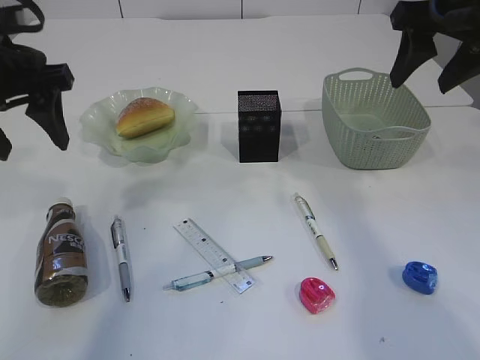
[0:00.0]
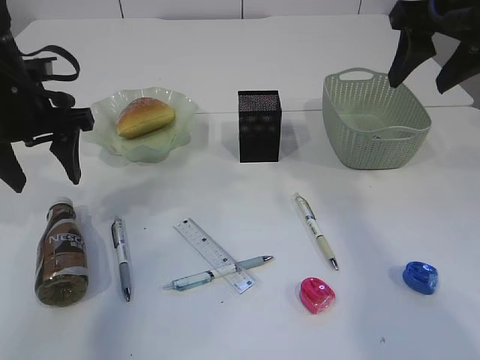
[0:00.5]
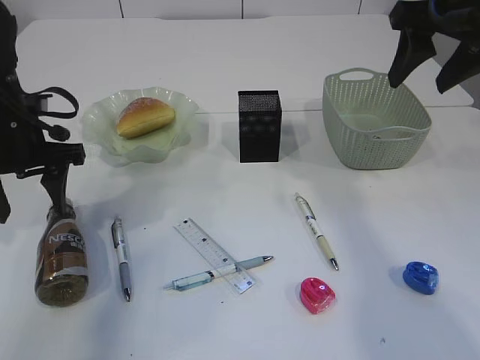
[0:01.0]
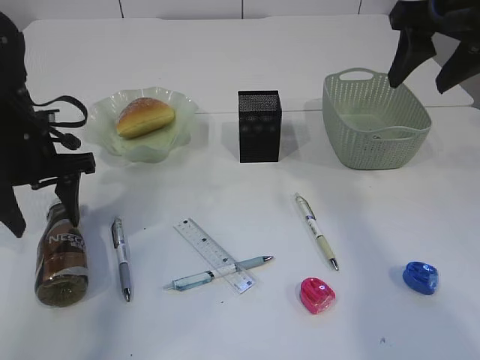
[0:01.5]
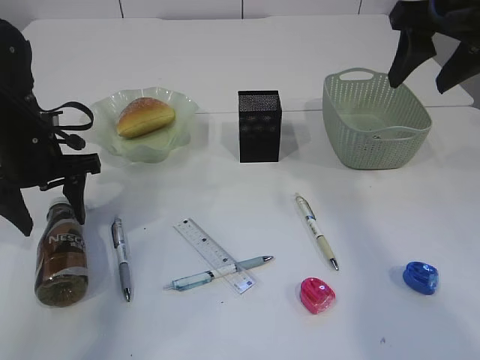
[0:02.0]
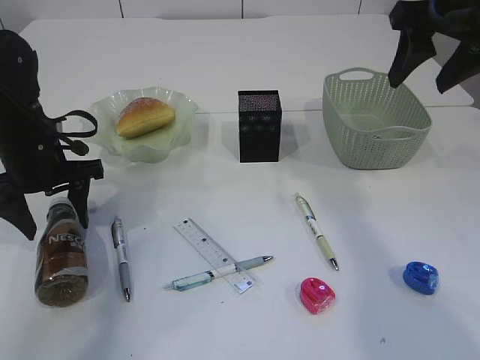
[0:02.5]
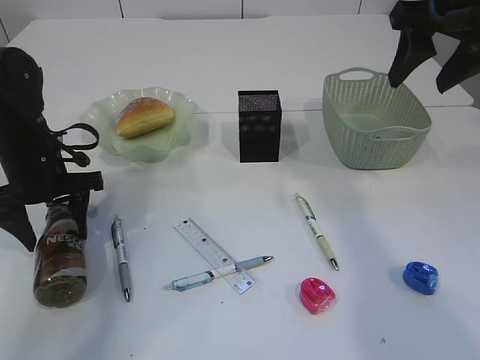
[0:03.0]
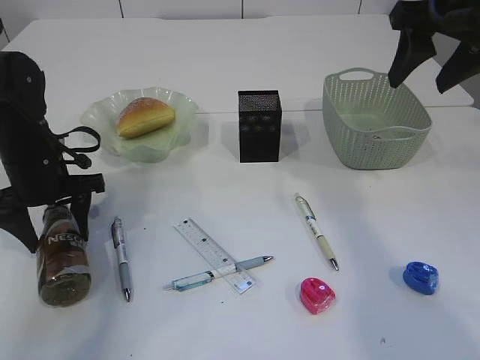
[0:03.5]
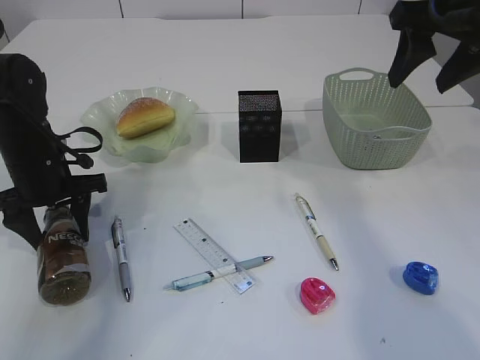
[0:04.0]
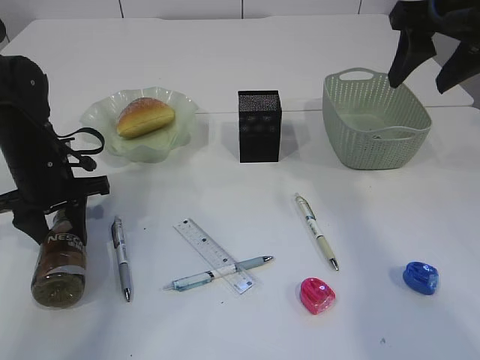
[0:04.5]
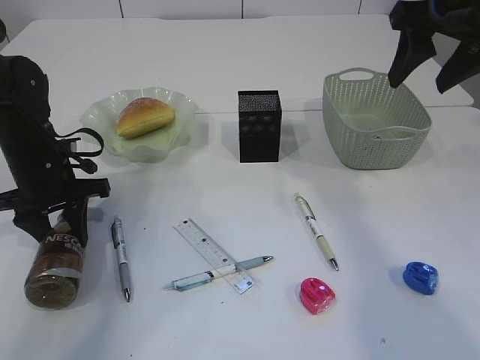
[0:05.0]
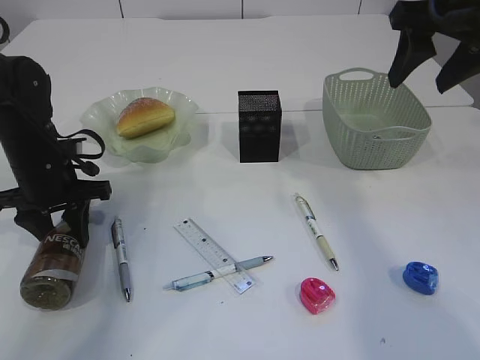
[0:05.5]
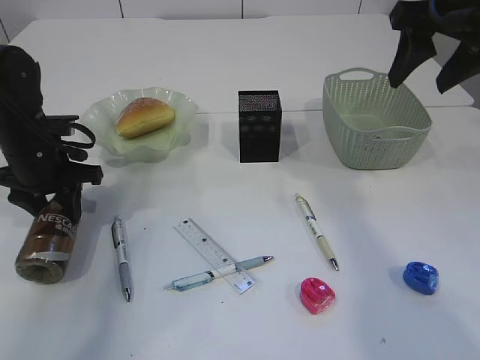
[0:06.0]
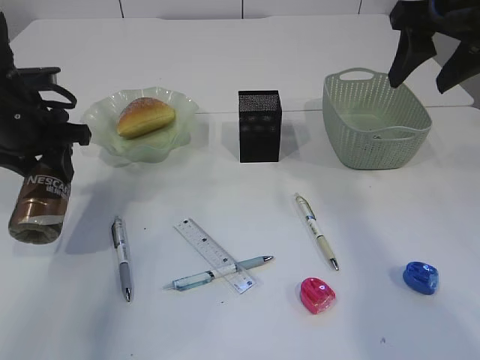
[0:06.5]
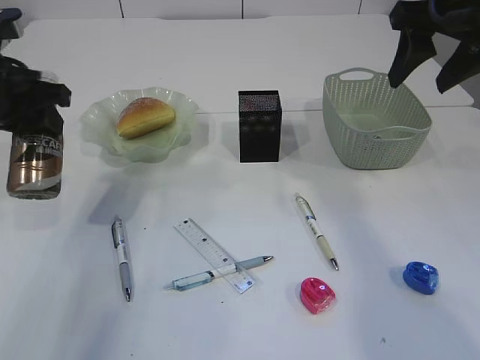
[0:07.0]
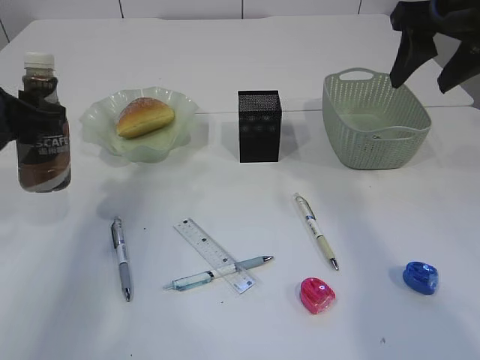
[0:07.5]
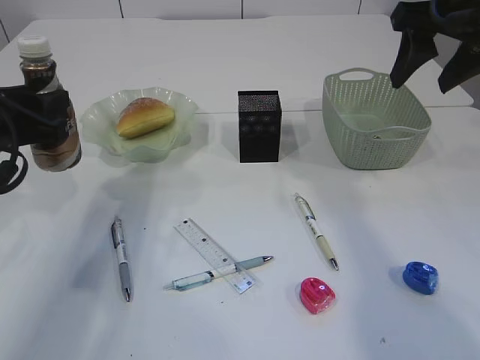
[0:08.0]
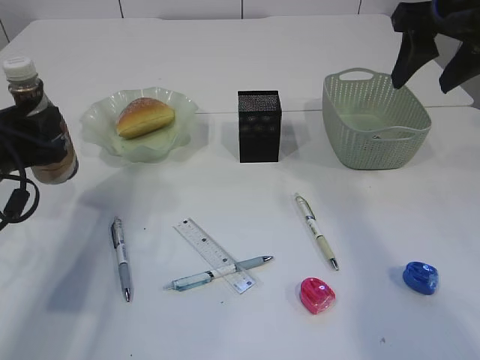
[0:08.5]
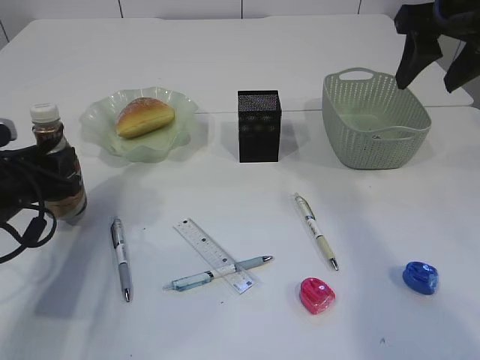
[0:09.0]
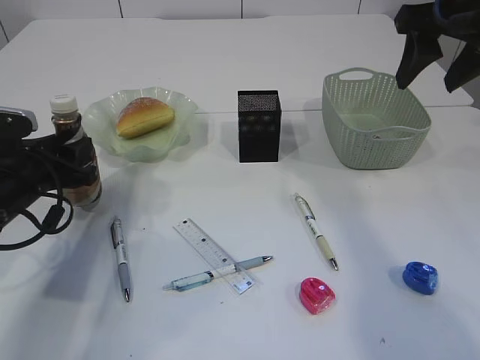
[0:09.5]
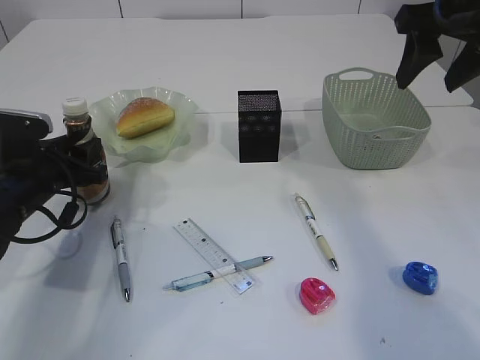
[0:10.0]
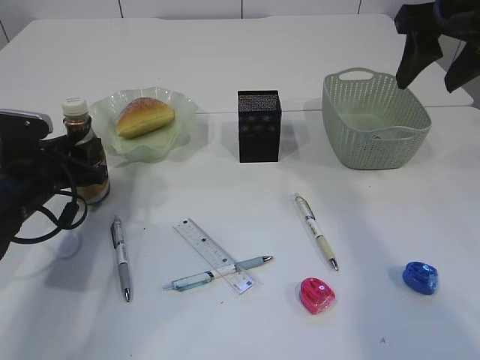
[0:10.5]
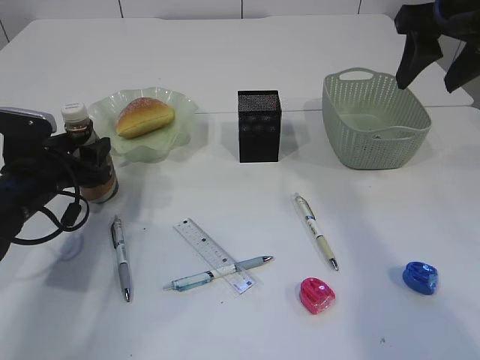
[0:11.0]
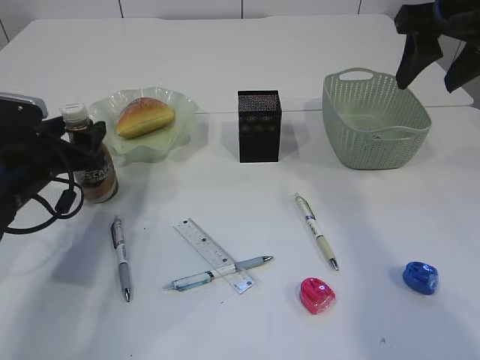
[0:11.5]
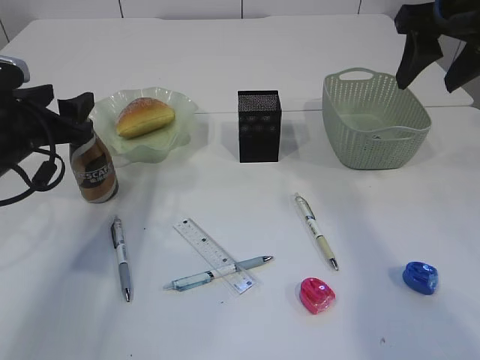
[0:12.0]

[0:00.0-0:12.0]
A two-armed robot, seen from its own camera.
Step, 0.0 to 6.5 s: Pick up the bottle with the left arm.
0.0 to 2.0 s: The left gripper shifts about 10 cm downward.
2.0 to 6.0 s: There are only small adjustments of the grippers.
6.0 to 8.0 s: The left gripper moves backward and upward, some 10 cm.
8.0 to 10.0 s: The left gripper heads downward, covering some 10 cm.
10.0 to 12.0 s: The left gripper travels upward by roughly 5 cm.

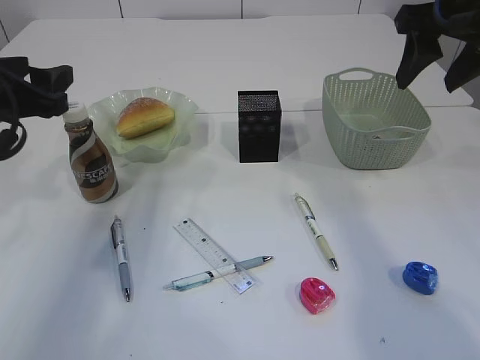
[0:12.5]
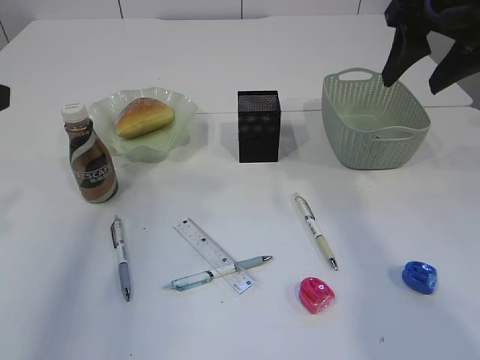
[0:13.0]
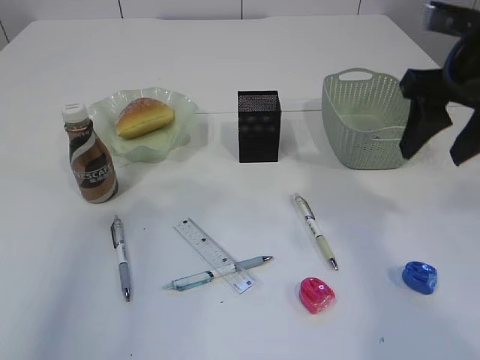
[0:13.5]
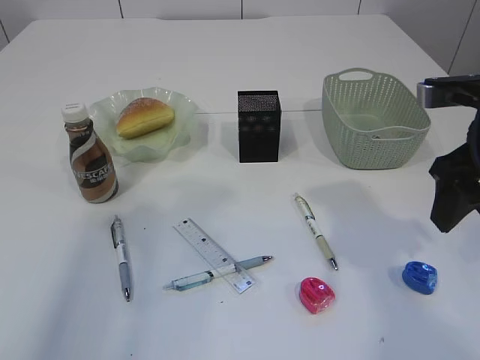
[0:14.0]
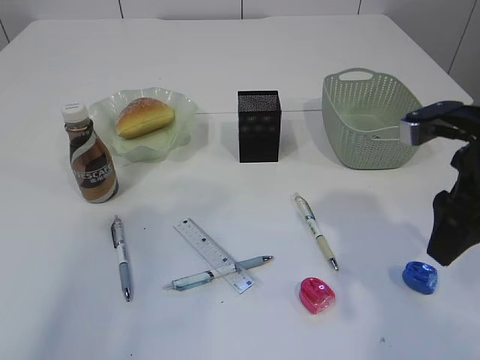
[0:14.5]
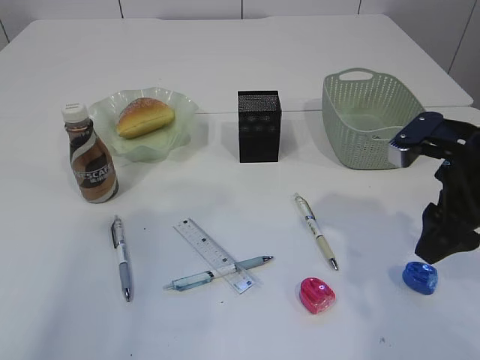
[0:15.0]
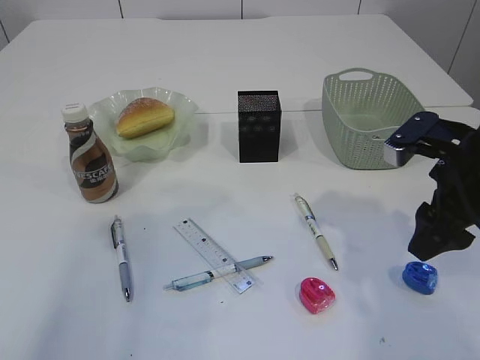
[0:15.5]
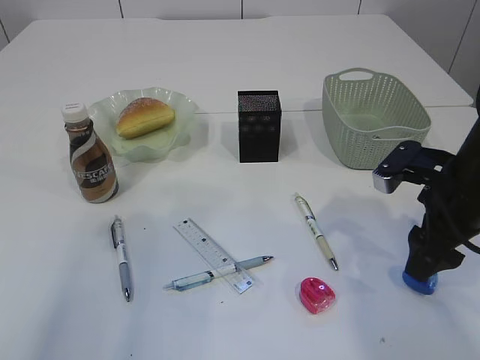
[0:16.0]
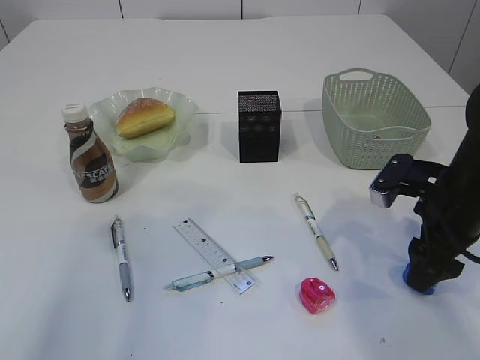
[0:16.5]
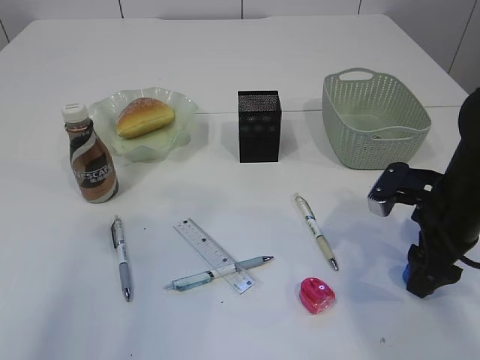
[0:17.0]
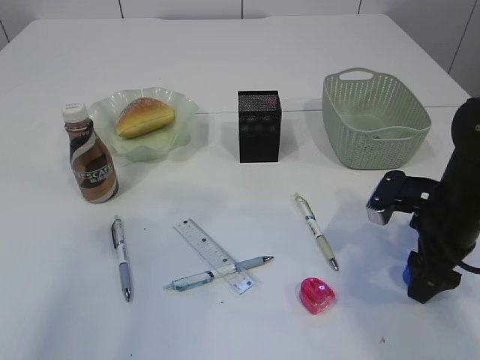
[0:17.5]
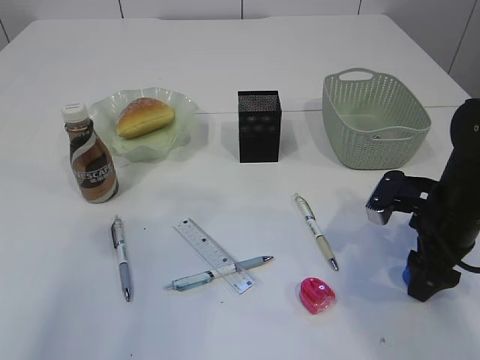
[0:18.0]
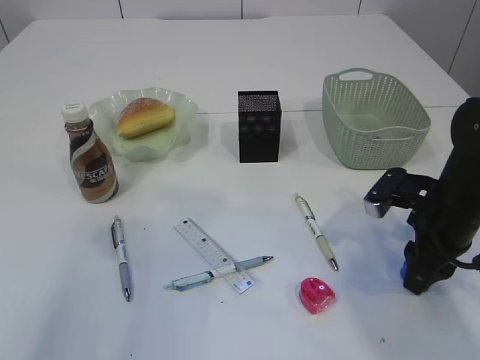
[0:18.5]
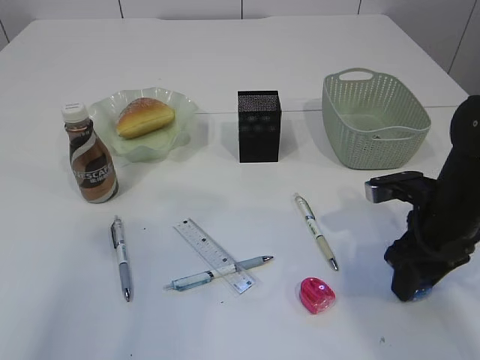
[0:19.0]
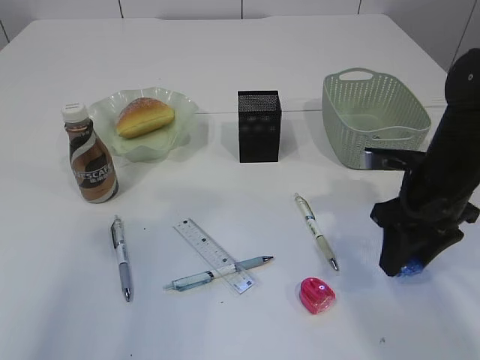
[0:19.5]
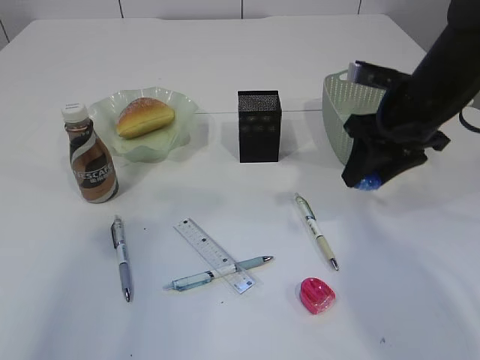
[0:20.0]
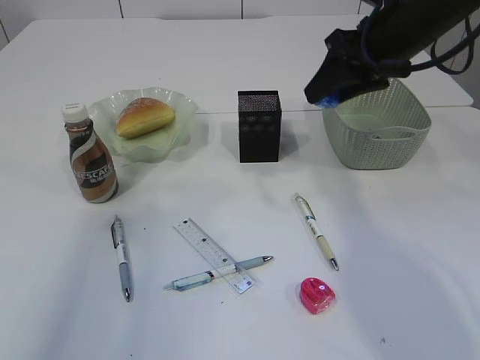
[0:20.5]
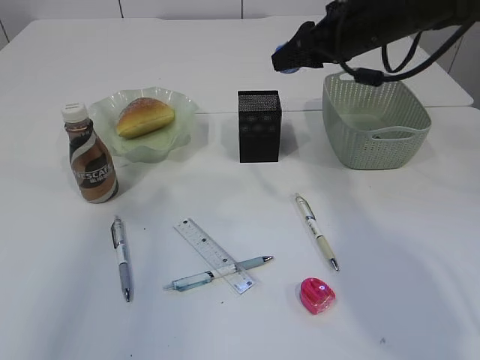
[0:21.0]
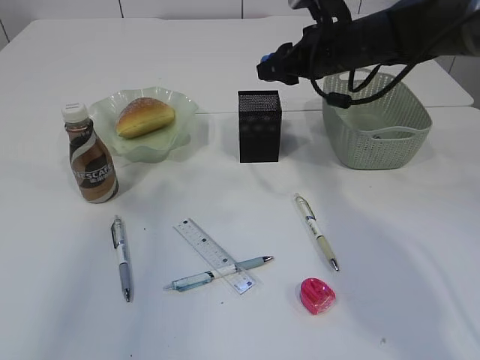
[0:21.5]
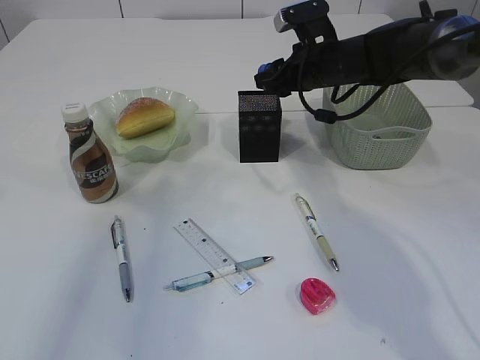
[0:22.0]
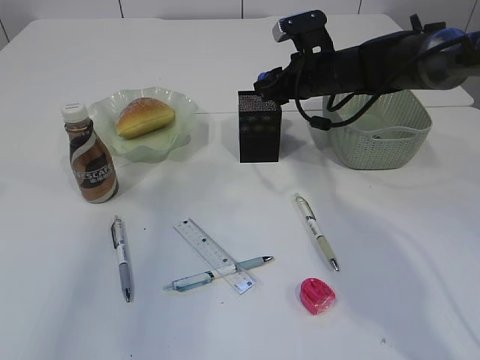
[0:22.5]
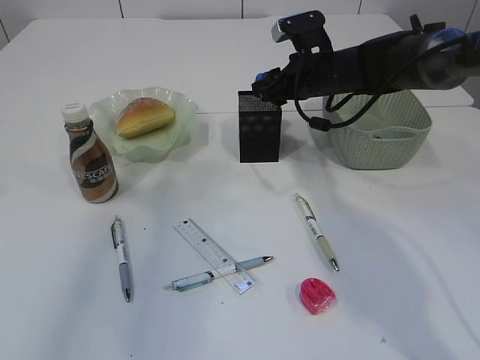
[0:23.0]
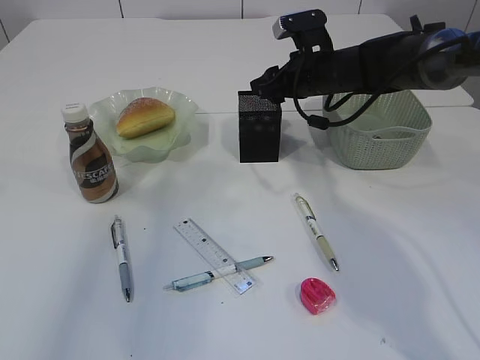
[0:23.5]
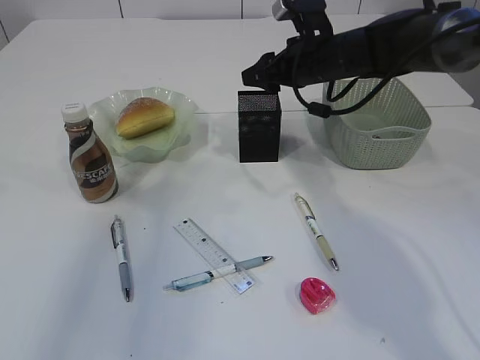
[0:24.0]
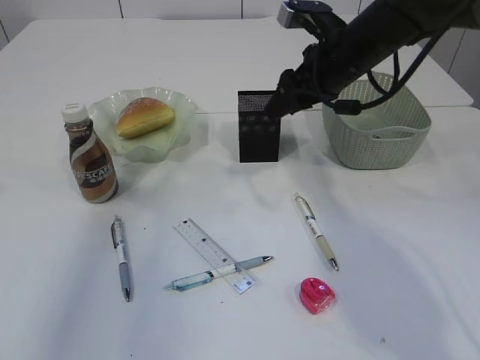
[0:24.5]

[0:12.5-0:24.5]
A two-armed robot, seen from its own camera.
Step, 12.5 to 19.5 s: Pick up the red pencil sharpener.
Step, 20.0 to 24.0 s: Place the red pencil sharpener into the pen holder.
12.5 to 14.5 s: The right gripper shifts roughly 15 cm downward and backward. The left gripper heads backward and upward, covering roughly 15 cm.
14.5 to 16.5 s: The right gripper heads downward, covering approximately 10 cm.
16.5 to 18.5 s: The right gripper closes.
18.5 to 20.5 s: The right gripper heads upward and forward, covering approximately 20 cm.
20.5 to 22.5 s: The right gripper travels downward and forward by approximately 15 cm.
22.5 to 24.5 s: The right gripper is displaced backward and upward by roughly 10 cm.

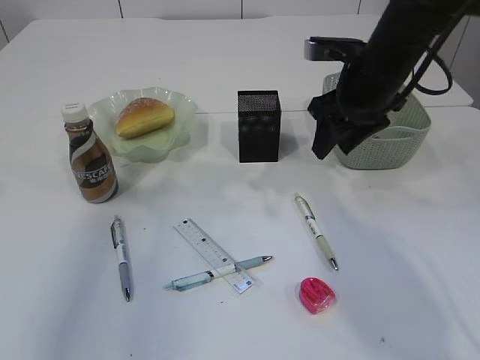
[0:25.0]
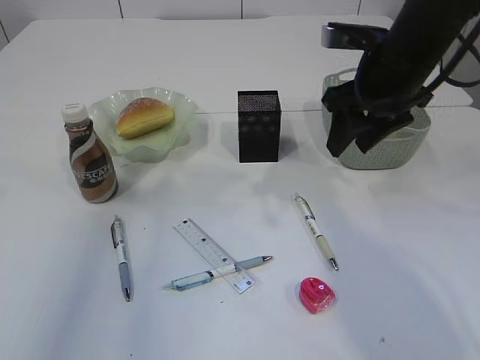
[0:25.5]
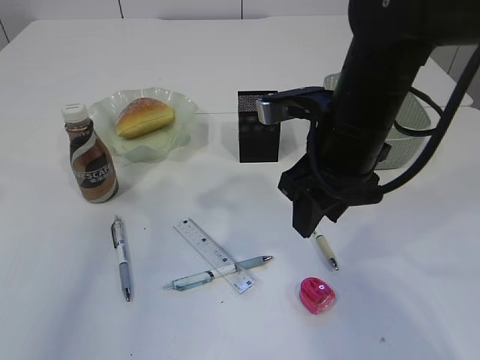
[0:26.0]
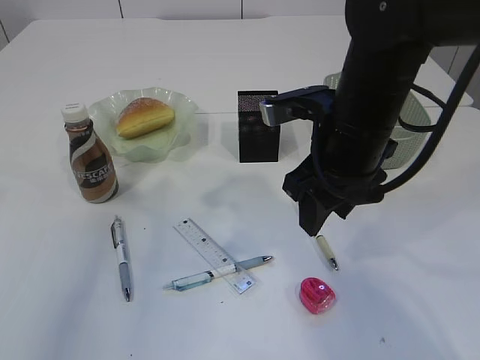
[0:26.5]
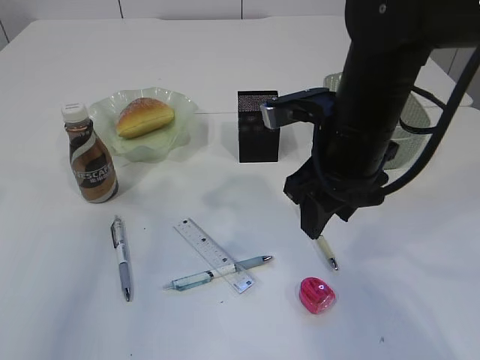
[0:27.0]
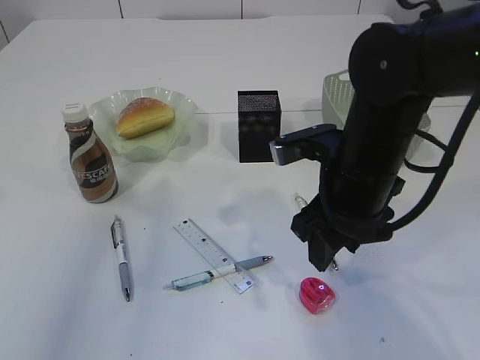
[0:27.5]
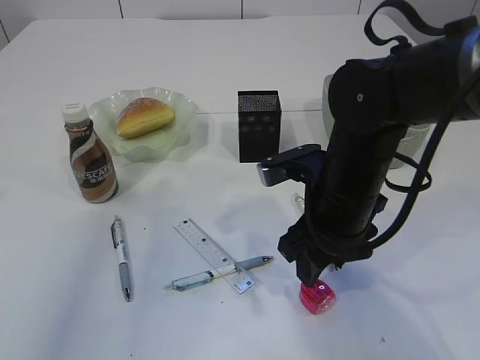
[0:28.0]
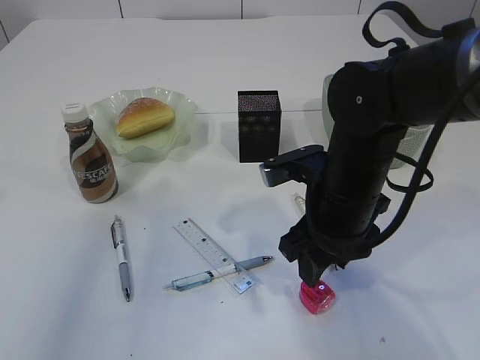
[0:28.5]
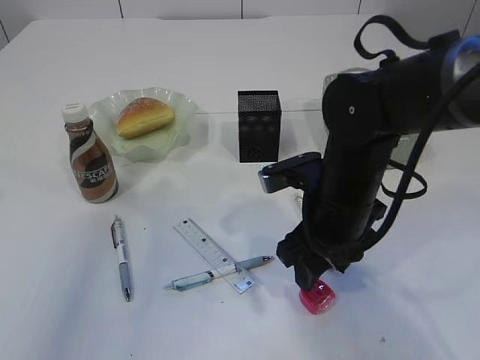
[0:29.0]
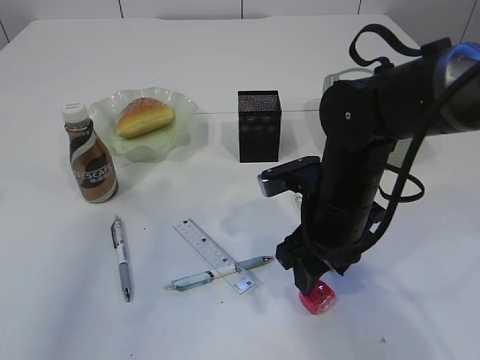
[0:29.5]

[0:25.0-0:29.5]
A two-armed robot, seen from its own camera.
25.0 to 27.0 s: The right gripper goes some 10 cm backward and to the left.
27.0 to 29.5 s: The right gripper moves downward, roughly 10 cm.
